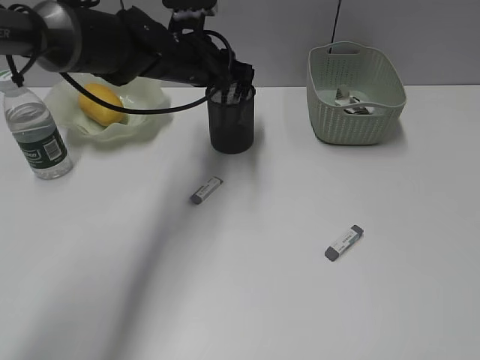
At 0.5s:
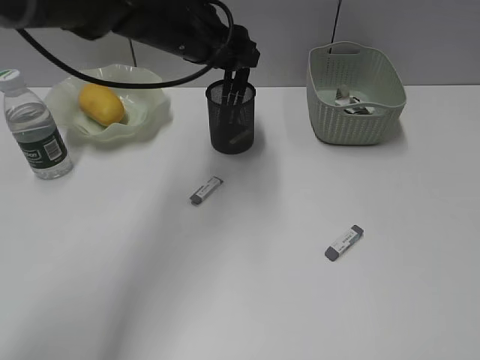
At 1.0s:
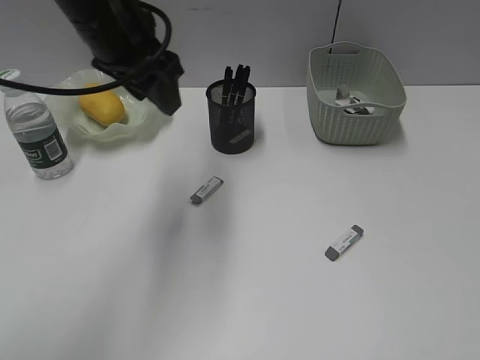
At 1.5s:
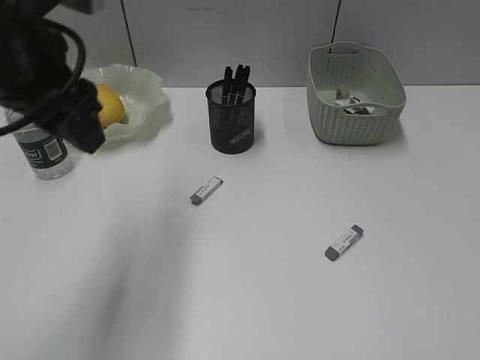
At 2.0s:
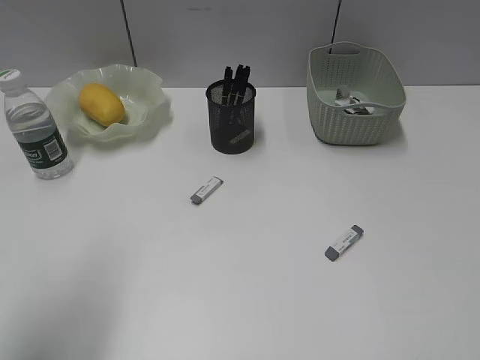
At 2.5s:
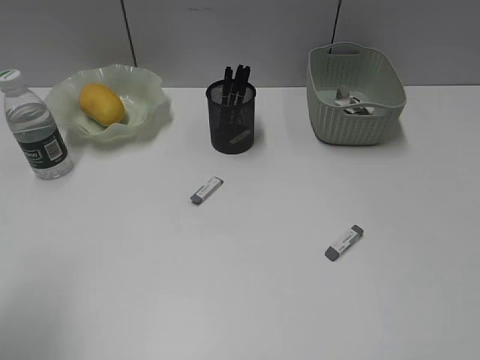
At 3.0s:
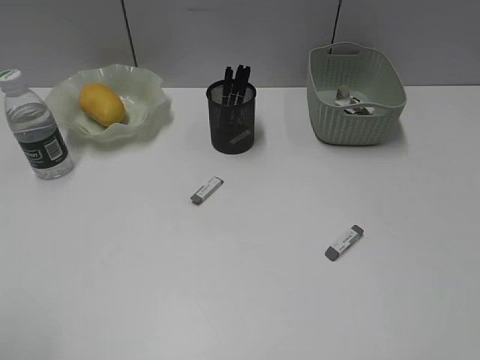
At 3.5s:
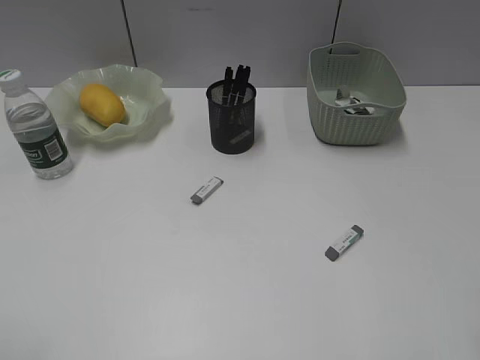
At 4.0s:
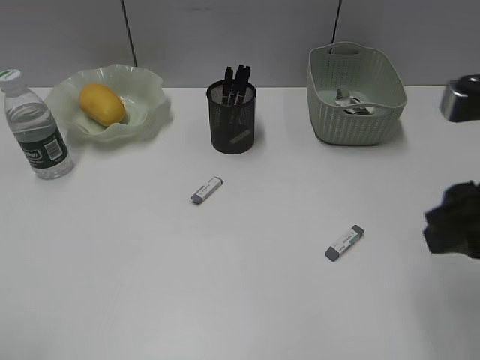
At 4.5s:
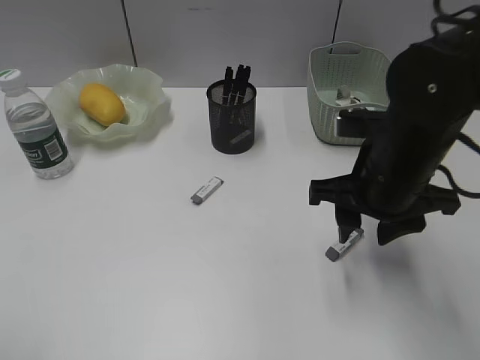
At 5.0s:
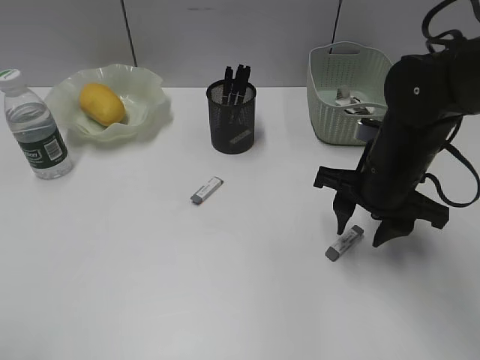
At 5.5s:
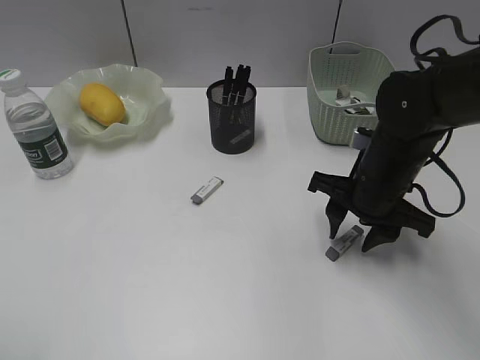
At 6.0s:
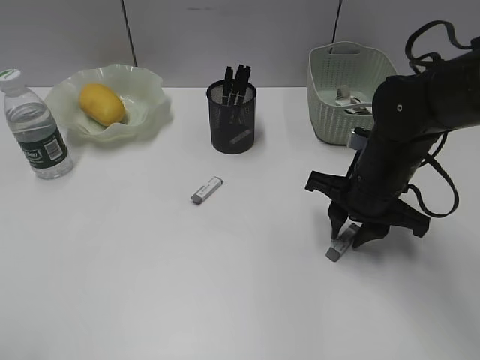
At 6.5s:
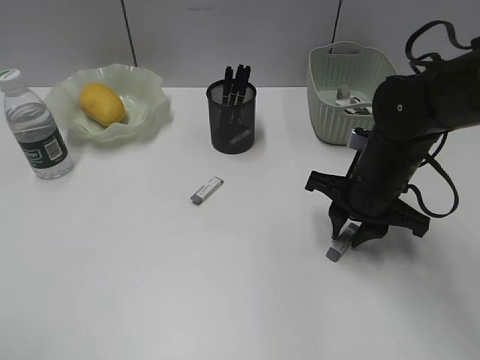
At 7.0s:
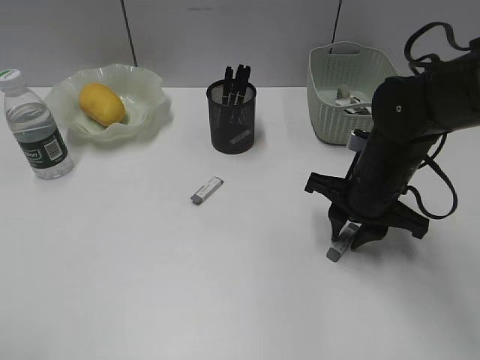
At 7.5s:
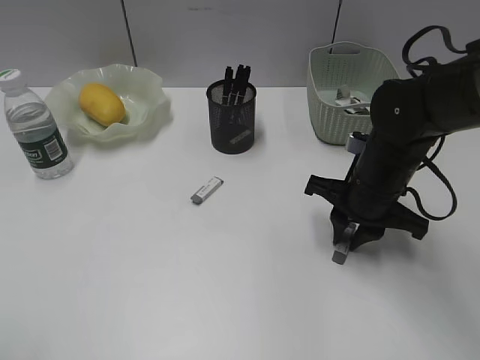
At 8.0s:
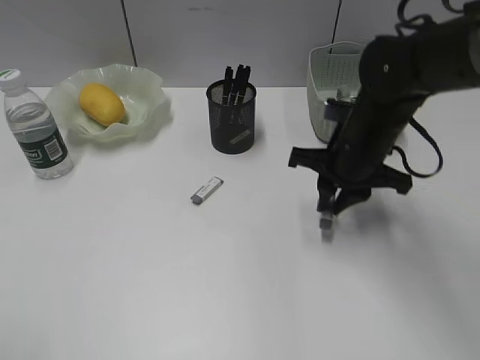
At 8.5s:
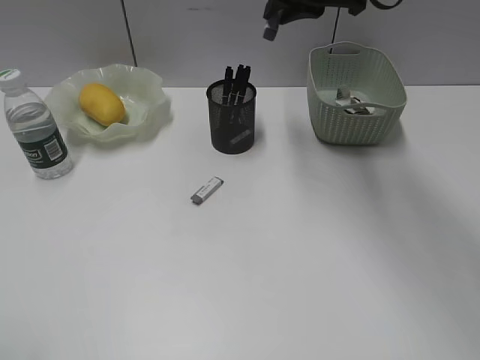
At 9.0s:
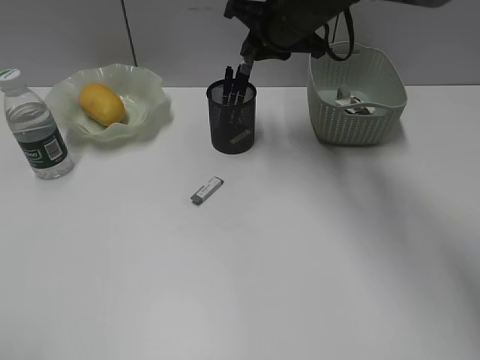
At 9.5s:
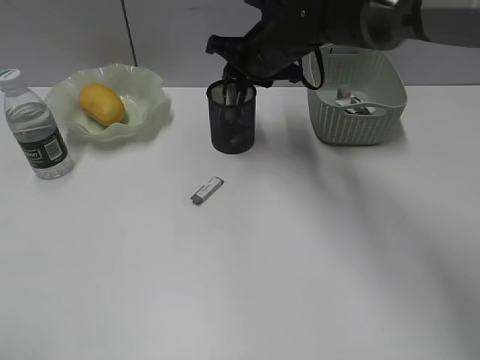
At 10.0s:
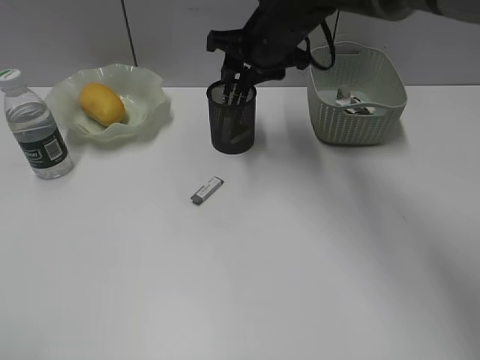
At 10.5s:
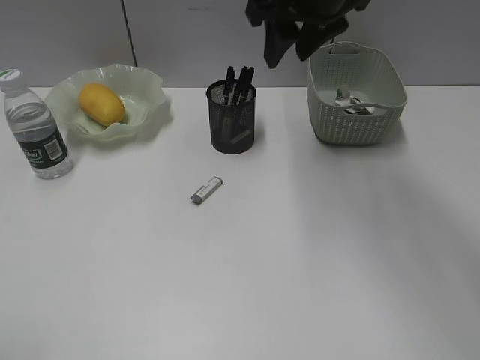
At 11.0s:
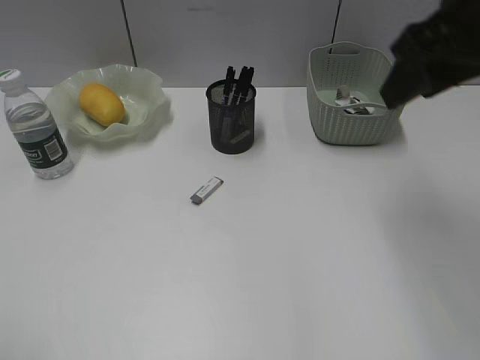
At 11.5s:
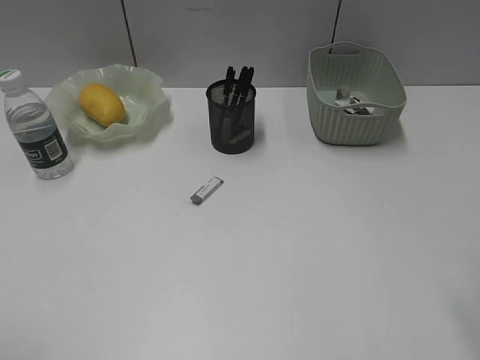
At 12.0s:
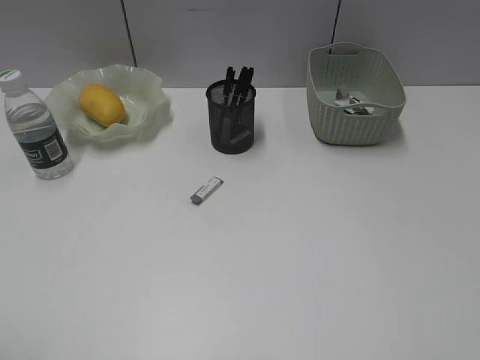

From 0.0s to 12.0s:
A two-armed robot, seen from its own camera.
Step, from 0.5s to 7.5s: Grasp the eraser with right gripper.
Step, from 8.0s to 10.0s: Place the eraser in pen holder with right gripper.
From 0.0s to 2.0s: The left gripper goes about 35 cm backward and to the left.
From 2.0s to 4.0s: The left gripper shifts approximately 15 cm backward and to the left. The right gripper travels forward and to the left by about 20 cm.
From 4.0s to 6.0s: The right gripper travels downward and forward by some 20 cm.
From 6.0s to 8.0s: The grippers move only a little.
From 8.0s to 10.0s: The right gripper travels forward, to the left and upward by about 15 cm, and opens up.
From 10.0s to 12.0s: The right gripper travels backward and to the right by approximately 50 cm.

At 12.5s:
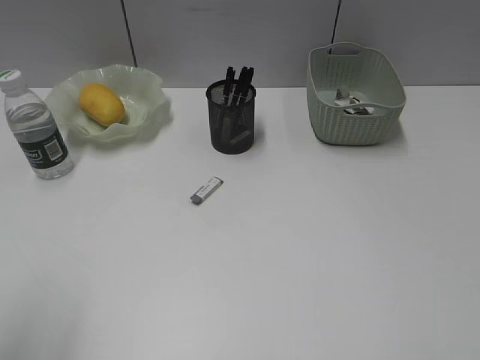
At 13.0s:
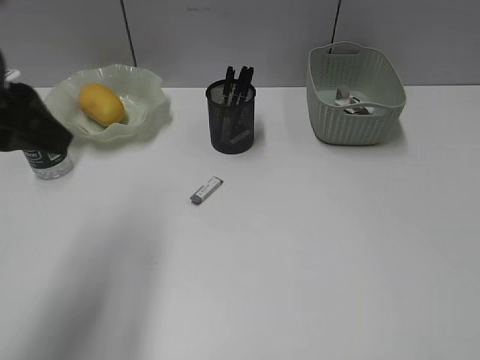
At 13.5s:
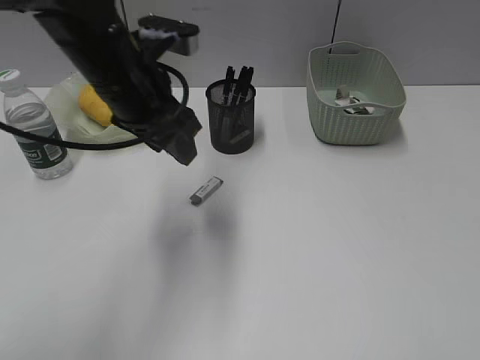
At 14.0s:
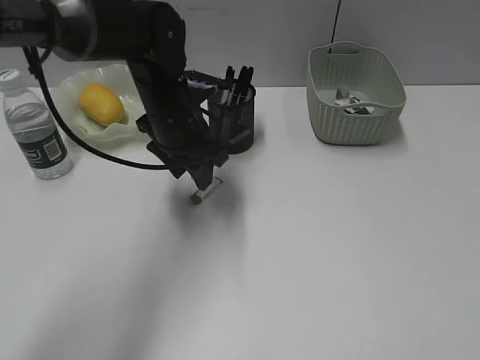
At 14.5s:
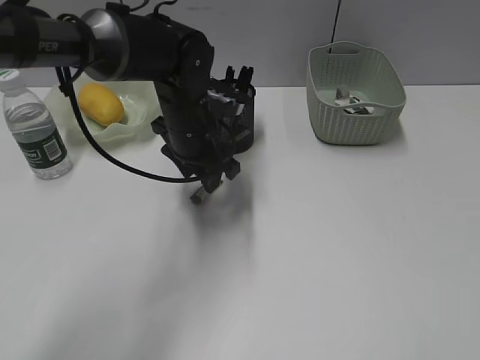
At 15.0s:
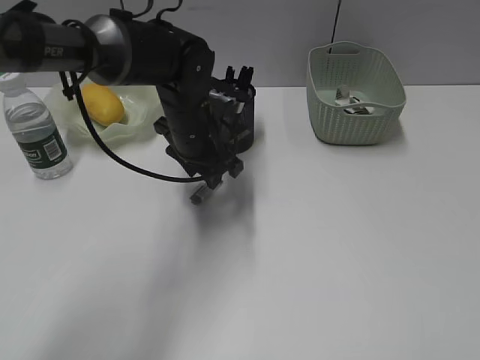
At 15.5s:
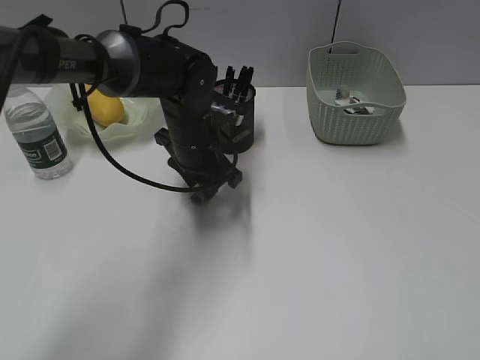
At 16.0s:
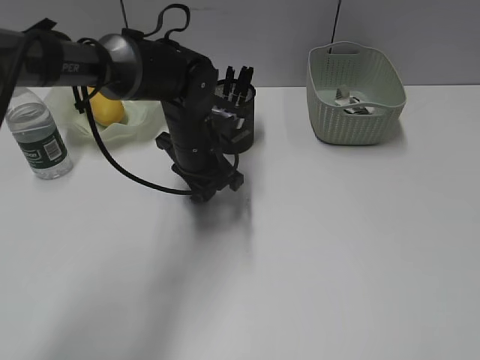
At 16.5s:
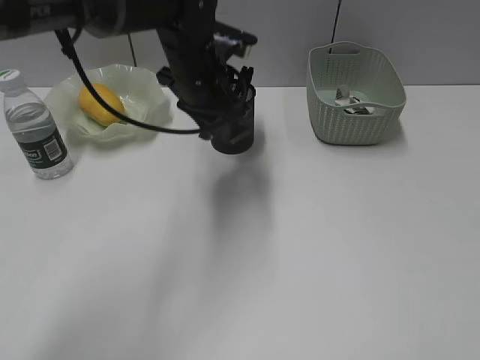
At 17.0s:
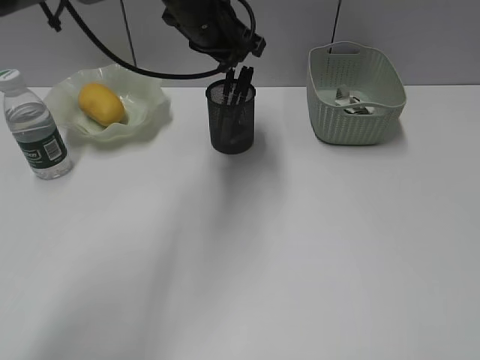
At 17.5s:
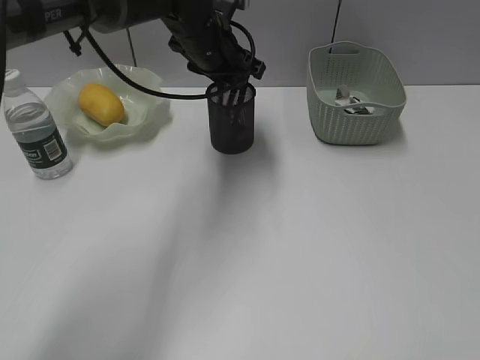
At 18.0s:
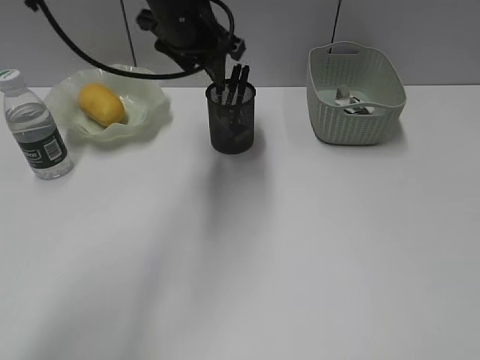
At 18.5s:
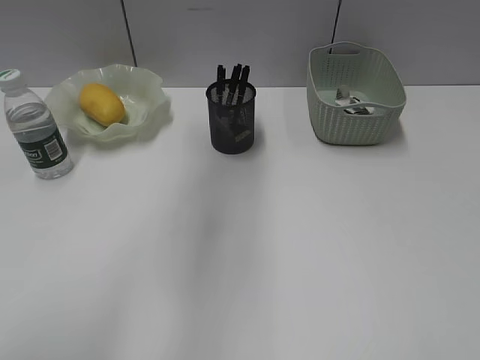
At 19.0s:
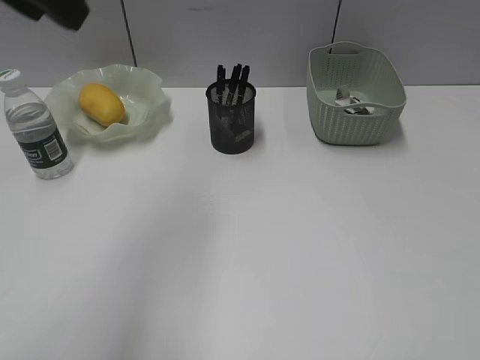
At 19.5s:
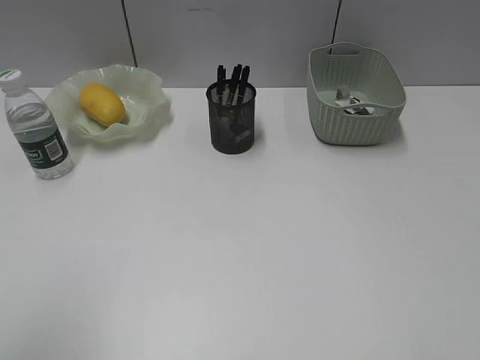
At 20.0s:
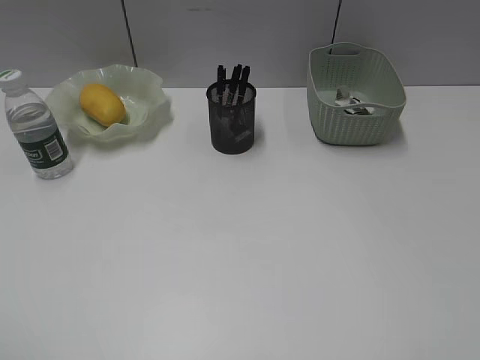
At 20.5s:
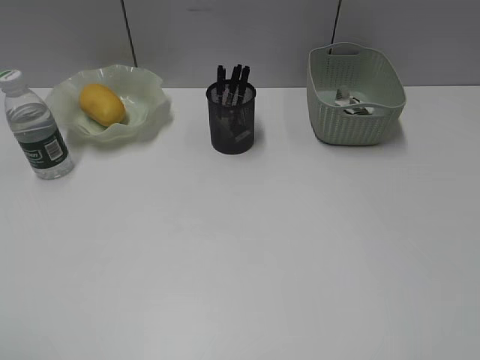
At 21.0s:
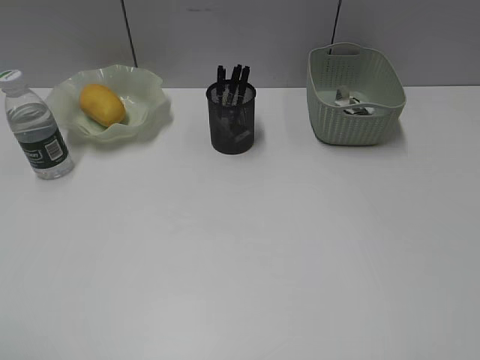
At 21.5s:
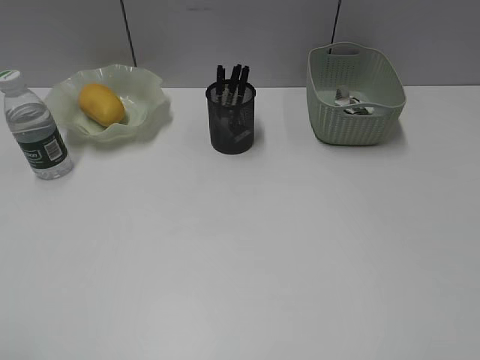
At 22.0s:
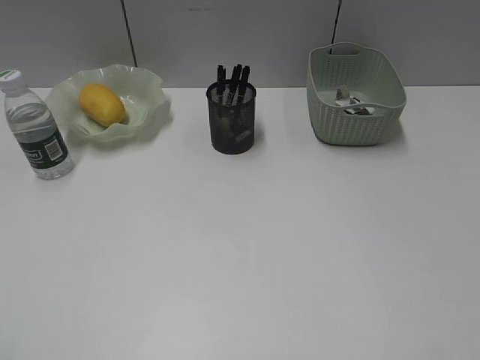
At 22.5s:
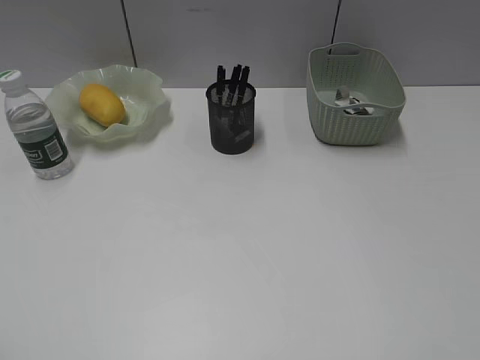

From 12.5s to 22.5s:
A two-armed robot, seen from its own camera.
Step, from 12.5s to 16.0s: Grasp the eraser with left gripper.
Step, from 16.5s to 17.5s: Place the eraser in pen holder with left gripper.
From 12.5s to 14.5s: The left gripper travels forward, to the right and downward by roughly 40 cm.
From 14.5s to 16.5s: The left gripper heads upward, covering some 5 cm, and closes.
From 16.5s to 18.5s: The left gripper moves up and down over approximately 20 cm, changing direction 2 times, and opens up.
From 18.5s to 20.5s: The left gripper travels backward, to the left and downward by roughly 40 cm.
